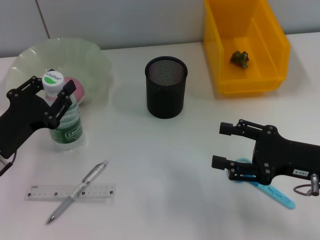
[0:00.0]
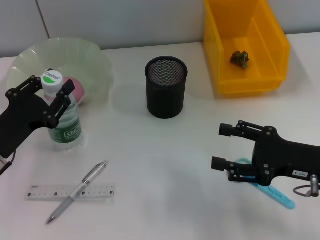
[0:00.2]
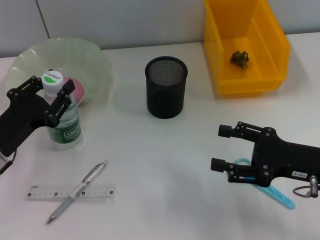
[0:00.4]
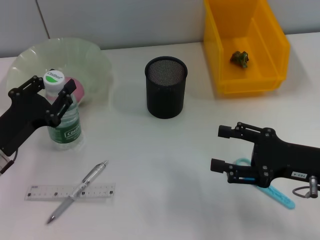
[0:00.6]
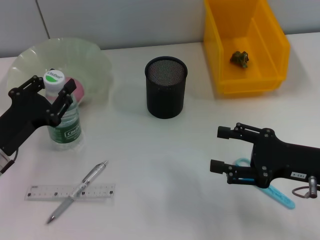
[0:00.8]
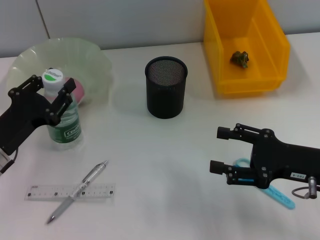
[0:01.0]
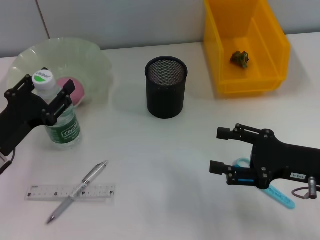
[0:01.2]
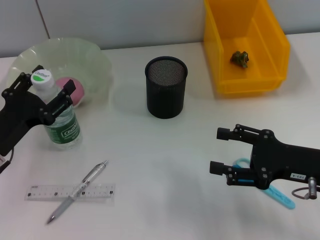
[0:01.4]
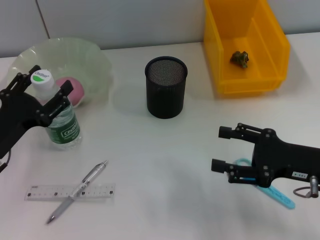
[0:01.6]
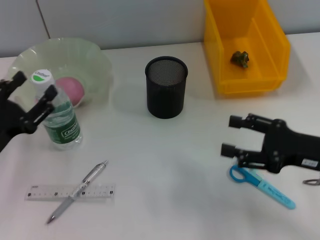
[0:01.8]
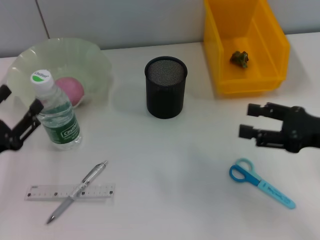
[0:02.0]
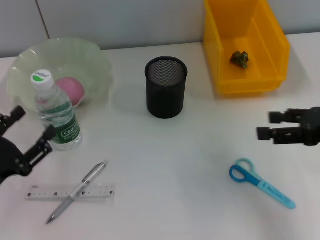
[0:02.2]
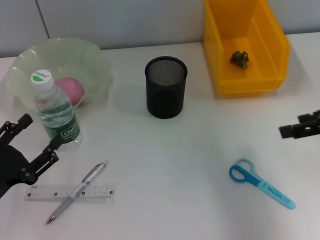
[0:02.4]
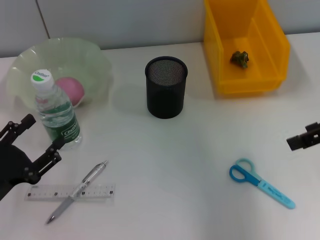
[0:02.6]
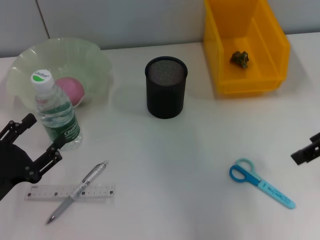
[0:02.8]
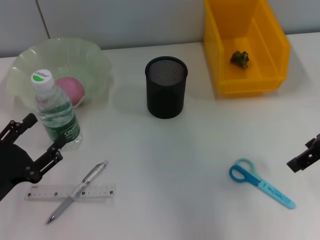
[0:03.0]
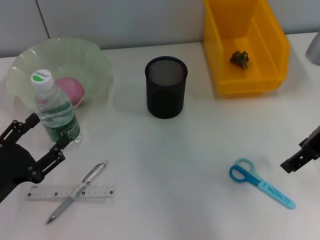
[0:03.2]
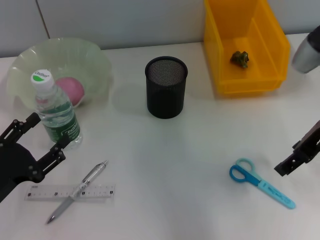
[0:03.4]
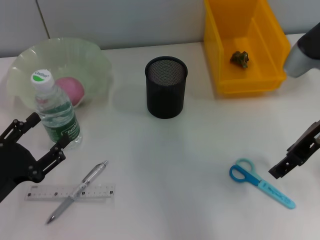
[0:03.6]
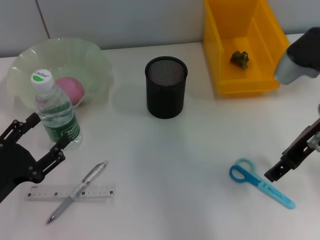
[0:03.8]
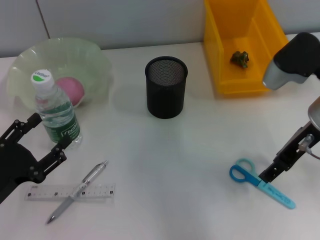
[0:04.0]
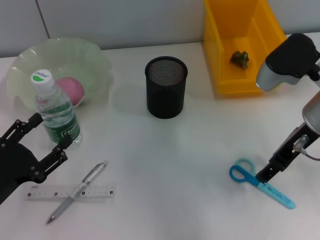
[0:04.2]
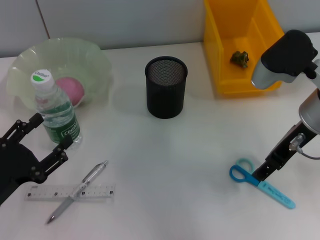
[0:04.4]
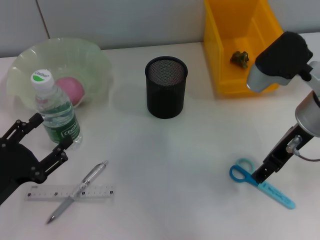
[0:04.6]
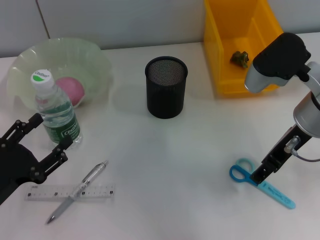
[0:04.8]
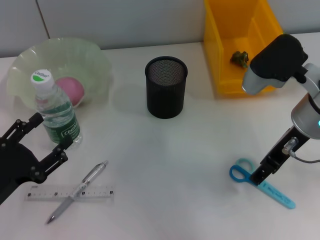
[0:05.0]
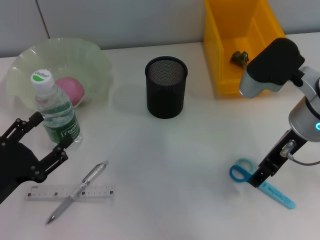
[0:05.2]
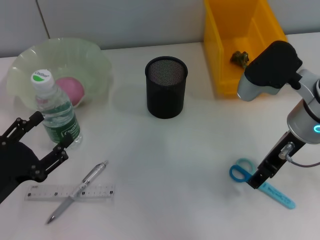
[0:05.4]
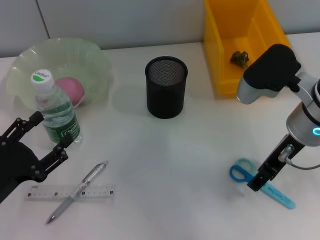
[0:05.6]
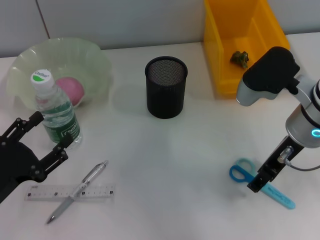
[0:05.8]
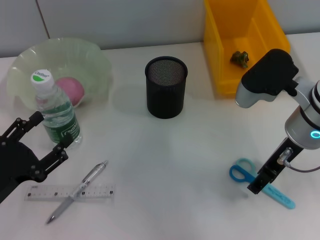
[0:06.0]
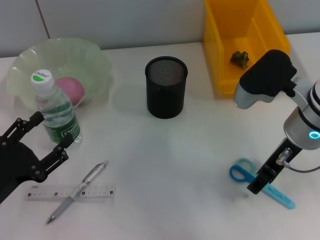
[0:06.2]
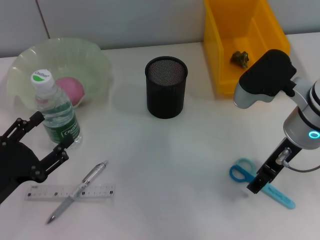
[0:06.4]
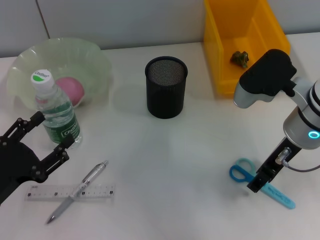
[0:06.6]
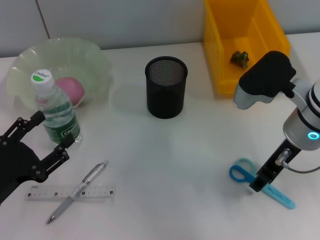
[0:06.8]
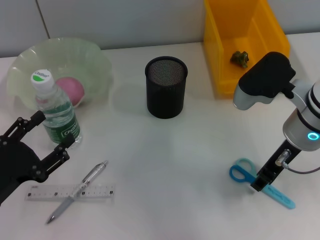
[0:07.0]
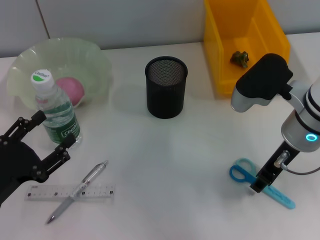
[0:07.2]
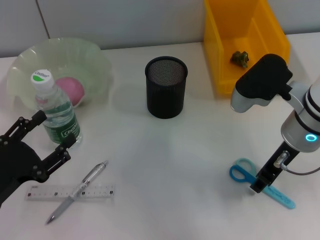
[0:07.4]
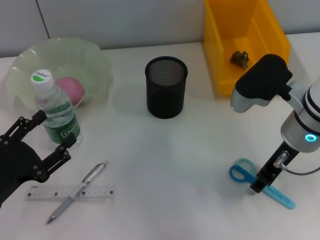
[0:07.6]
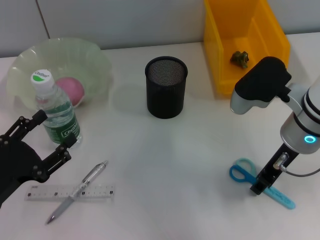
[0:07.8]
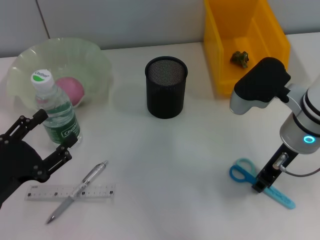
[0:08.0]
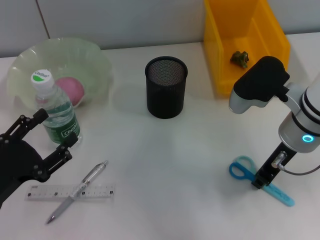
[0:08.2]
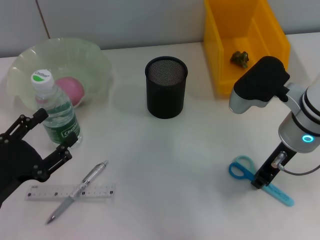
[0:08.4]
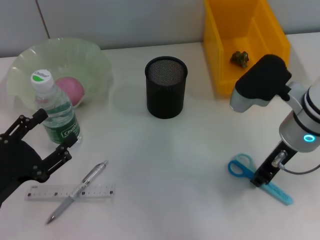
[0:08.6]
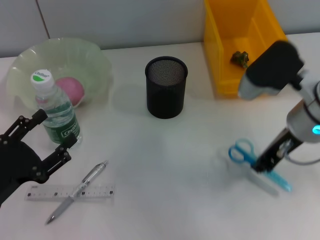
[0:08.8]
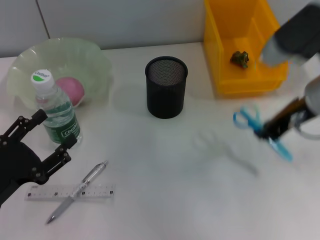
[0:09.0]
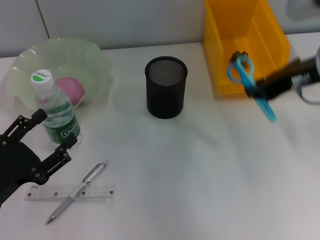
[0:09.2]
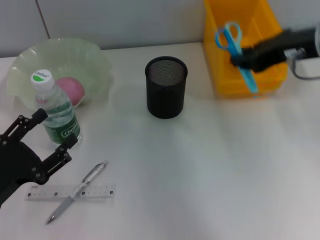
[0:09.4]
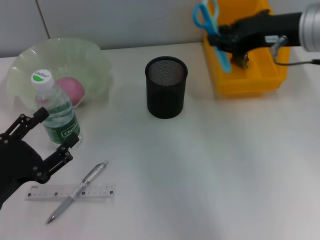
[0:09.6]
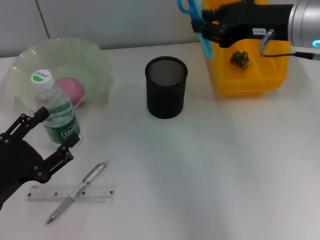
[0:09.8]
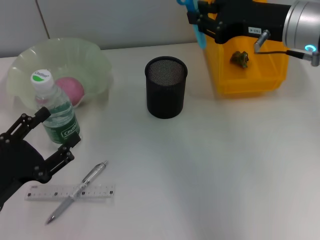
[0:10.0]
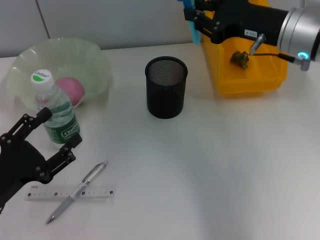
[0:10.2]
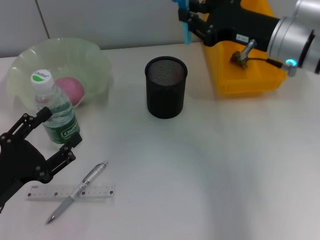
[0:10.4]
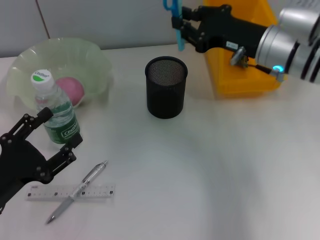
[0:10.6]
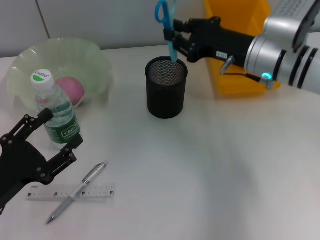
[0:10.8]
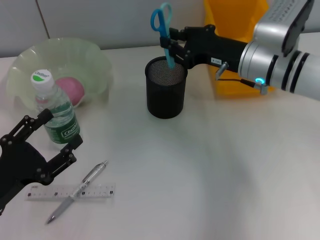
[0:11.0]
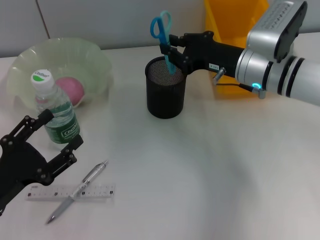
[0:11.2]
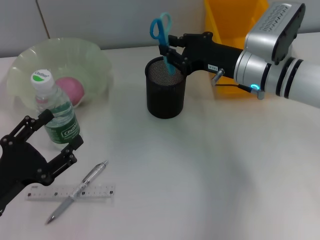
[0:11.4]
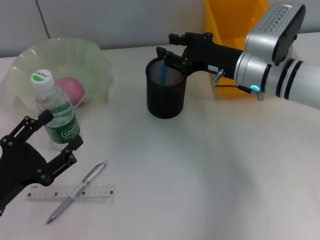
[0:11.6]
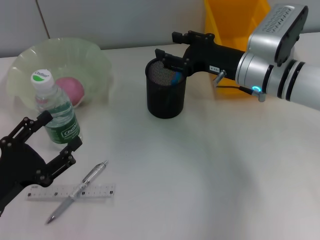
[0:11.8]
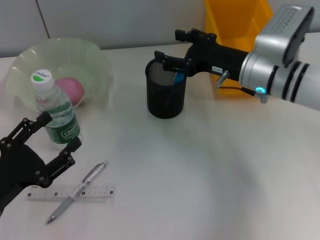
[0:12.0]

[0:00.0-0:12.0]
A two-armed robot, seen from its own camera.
Step, 0:01.8 to 0:08.2: Grab the blue scissors with the right hand.
Step, 0:08.4 to 0:11.8: Place the blue scissors into the pen holder with the right hand.
0:00.0 to 0:01.6: Both grippers stay about where they are.
0:01.6 to 0:03.0: The right gripper goes some 15 cm upward and forward; the left gripper is displaced backward by about 5 cm.
0:03.0 to 0:04.4: The right gripper is displaced to the left by approximately 5 cm.
0:04.4 to 0:06.0: The grippers move only a little.
0:06.0 to 0:07.6: The right gripper closes.
0:07.6 to 0:09.0: The right gripper moves upward, some 5 cm, and closes up.
0:09.0 to 0:10.4: The right gripper travels forward by some 5 cm.
0:10.4 to 0:12.0: The right gripper moves downward, some 5 cm, and opens up.

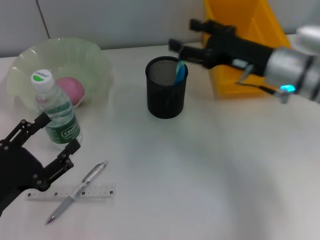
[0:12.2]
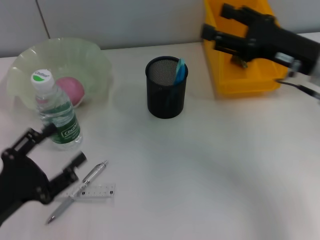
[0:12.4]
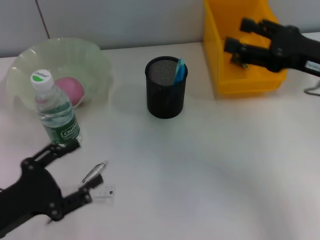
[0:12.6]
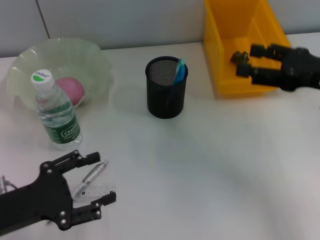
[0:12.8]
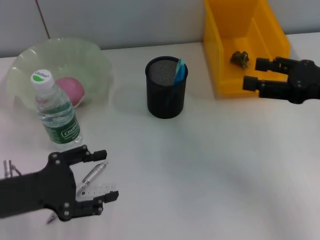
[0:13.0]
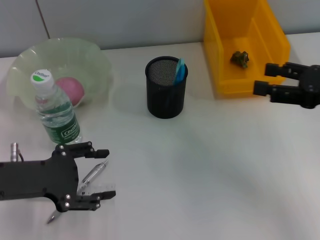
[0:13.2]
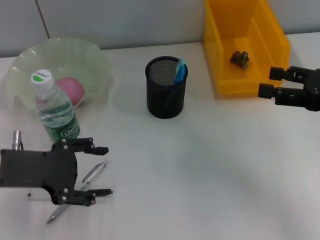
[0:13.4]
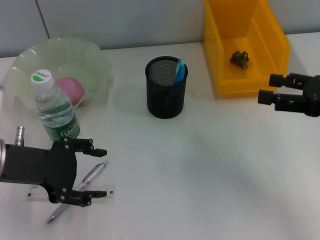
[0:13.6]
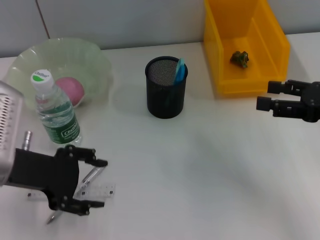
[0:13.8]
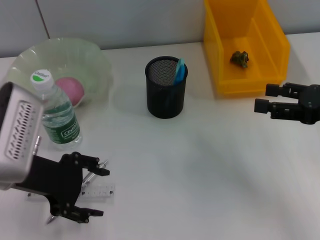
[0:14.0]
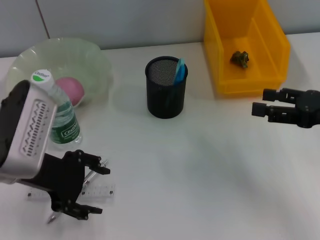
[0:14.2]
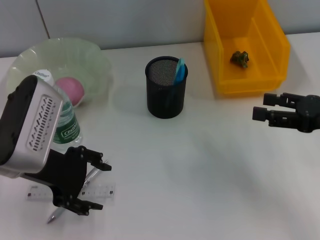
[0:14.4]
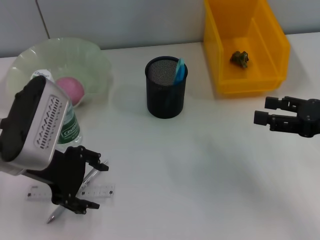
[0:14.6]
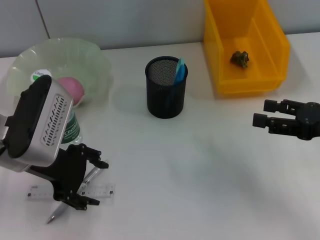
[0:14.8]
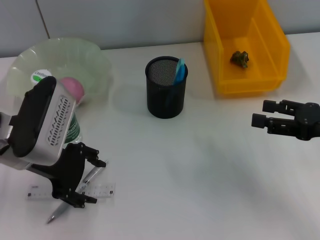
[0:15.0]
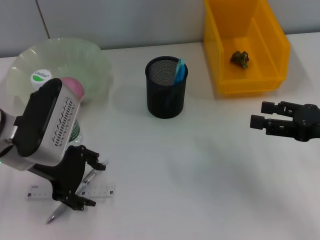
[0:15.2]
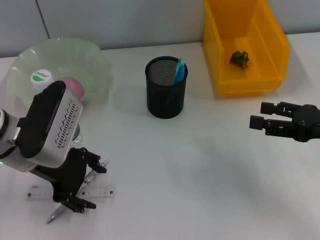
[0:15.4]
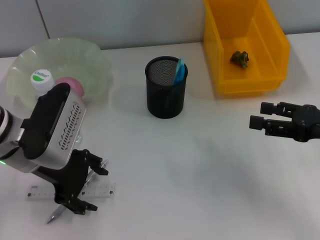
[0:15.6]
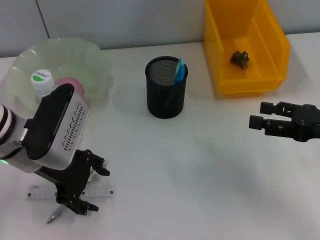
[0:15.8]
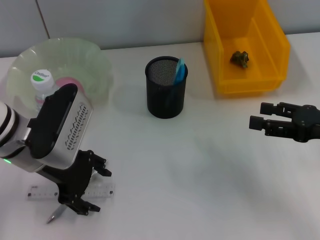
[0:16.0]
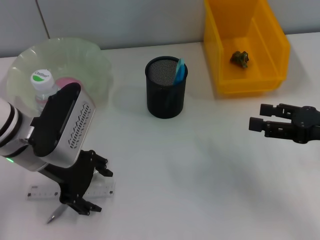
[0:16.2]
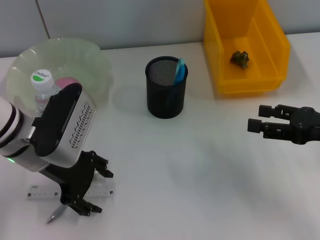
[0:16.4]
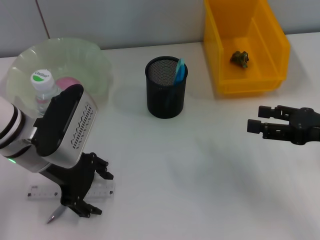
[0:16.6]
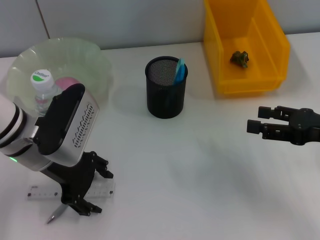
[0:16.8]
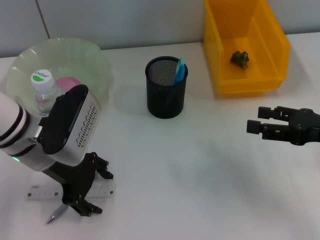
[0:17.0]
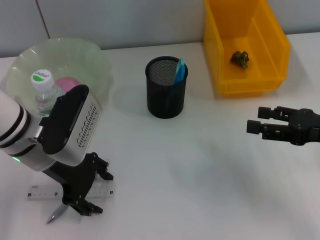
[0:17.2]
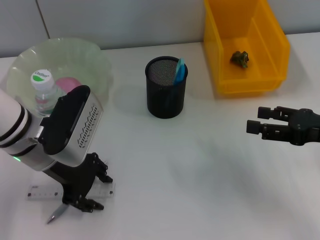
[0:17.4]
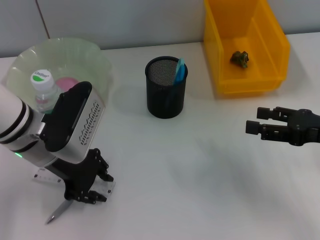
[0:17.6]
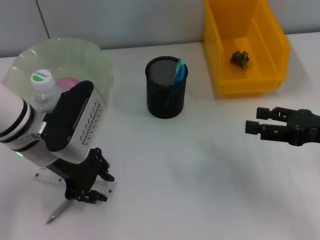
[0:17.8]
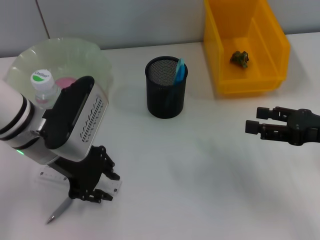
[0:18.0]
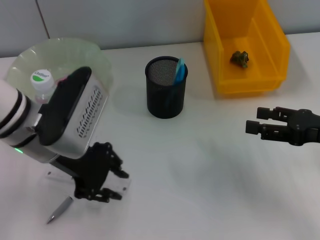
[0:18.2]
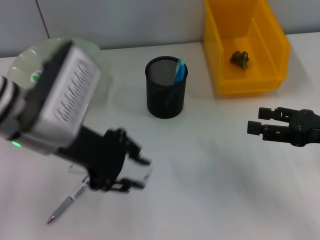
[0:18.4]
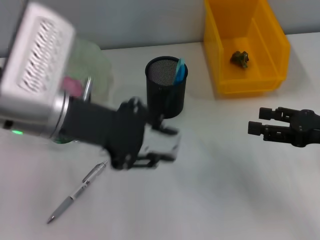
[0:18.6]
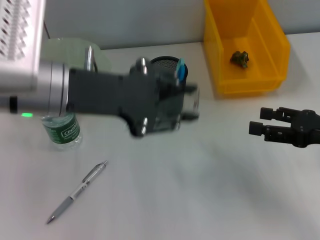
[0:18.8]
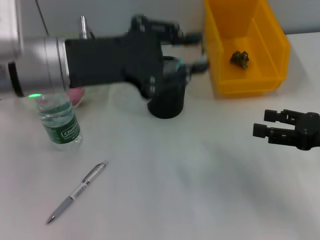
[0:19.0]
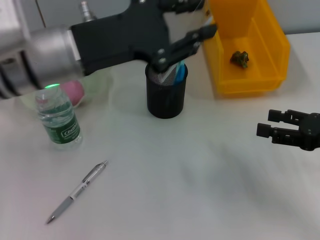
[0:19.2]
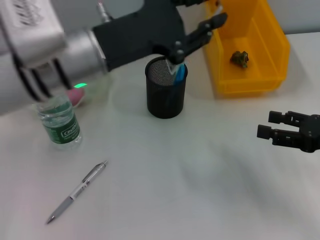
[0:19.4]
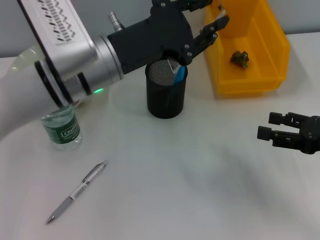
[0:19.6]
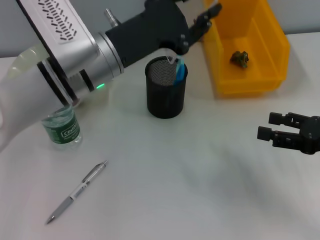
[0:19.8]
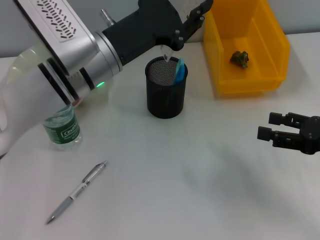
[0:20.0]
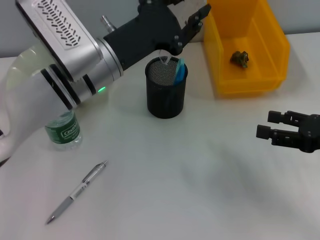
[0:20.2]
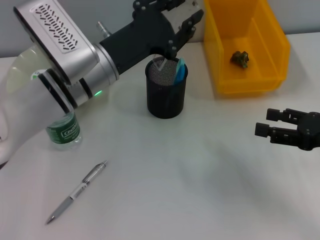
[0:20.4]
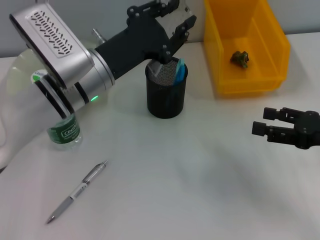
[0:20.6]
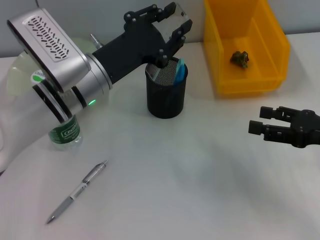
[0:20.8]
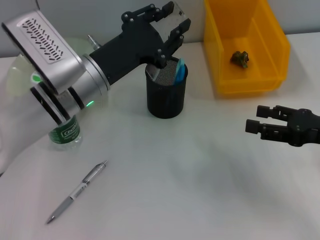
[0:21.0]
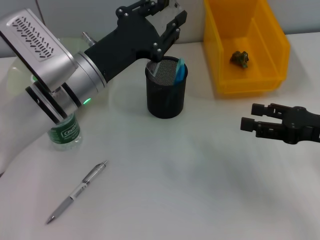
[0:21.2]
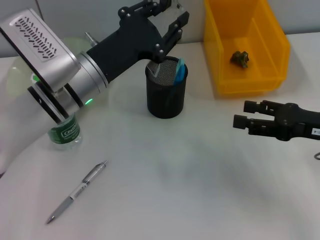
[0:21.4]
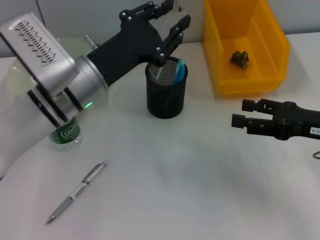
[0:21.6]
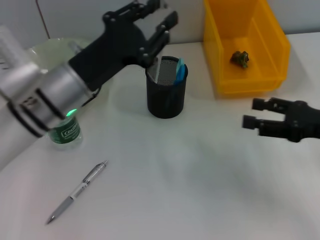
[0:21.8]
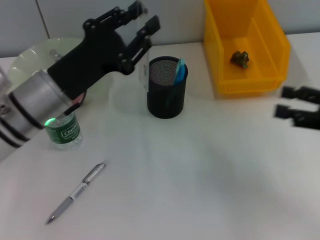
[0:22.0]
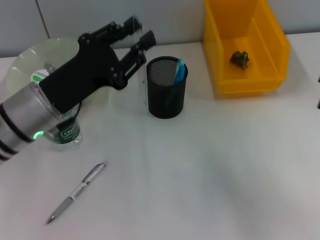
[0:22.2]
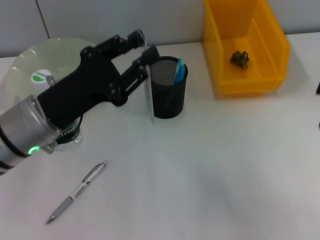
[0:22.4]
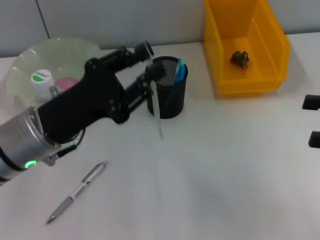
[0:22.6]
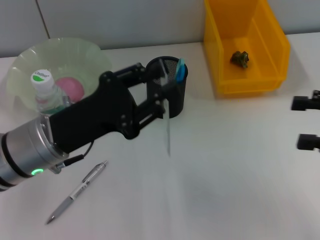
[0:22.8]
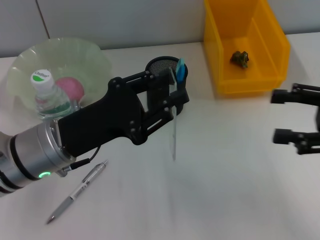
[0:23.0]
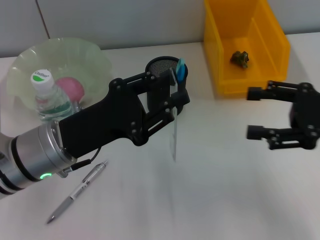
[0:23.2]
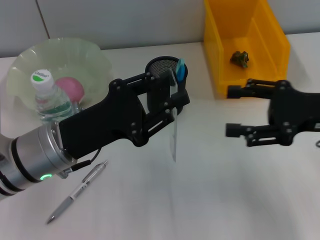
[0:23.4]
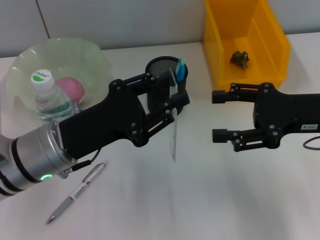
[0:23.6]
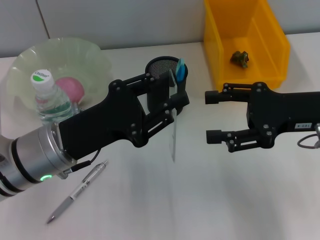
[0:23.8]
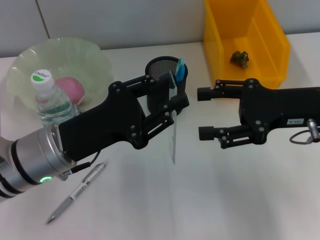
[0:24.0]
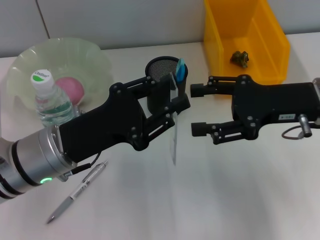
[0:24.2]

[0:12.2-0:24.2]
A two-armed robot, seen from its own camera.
Step, 0:12.2 to 0:17.6: Grab the ruler with the left hand.
0:12.2 to 0:13.8: The left gripper moves upward and forward, some 15 cm. Meanwhile the right gripper heads to the right and backward, covering about 15 cm.
0:13.8 to 0:15.2: The left gripper ends up approximately 5 cm from where it was.
0:15.2 to 0:16.6: The grippers move only a little.
0:16.6 to 0:18.2: The left gripper closes.
0:18.2 to 0:19.8: The left gripper is displaced to the right by roughly 5 cm.
0:19.8 to 0:21.2: There are only small adjustments of the grippers.
0:21.2 to 0:22.6: The left gripper moves backward and to the left, approximately 10 cm. Meanwhile the right gripper travels upward and to the right by some 10 cm.
0:22.6 to 0:24.2: The right gripper moves to the left and forward, about 15 cm.
